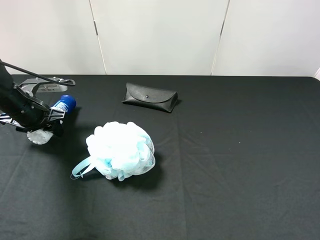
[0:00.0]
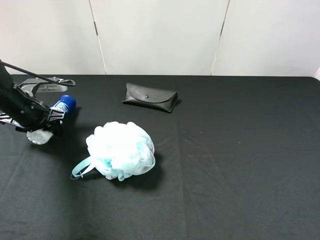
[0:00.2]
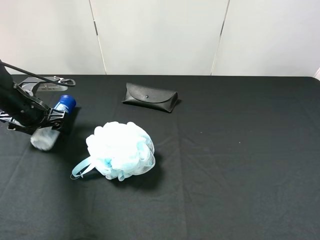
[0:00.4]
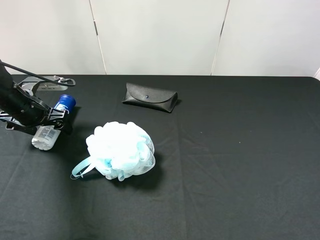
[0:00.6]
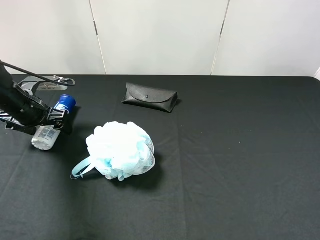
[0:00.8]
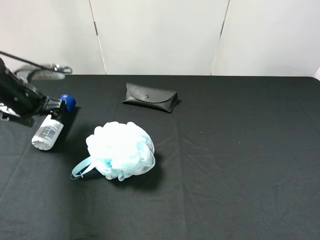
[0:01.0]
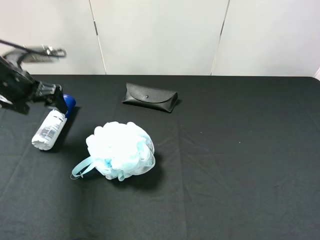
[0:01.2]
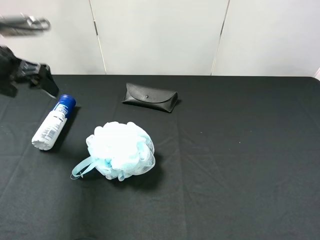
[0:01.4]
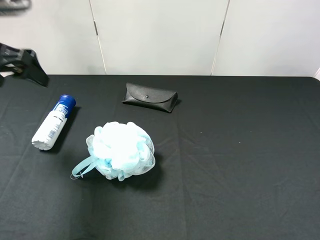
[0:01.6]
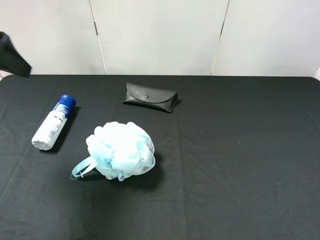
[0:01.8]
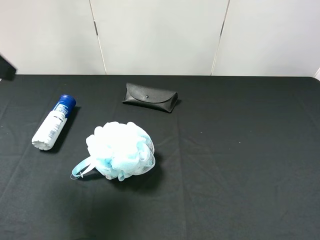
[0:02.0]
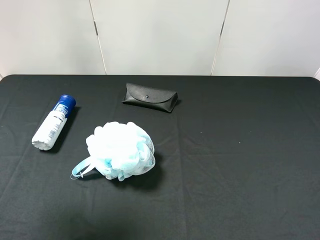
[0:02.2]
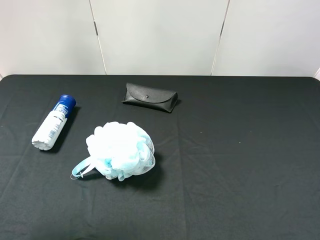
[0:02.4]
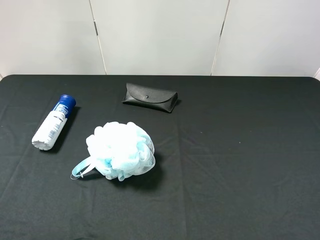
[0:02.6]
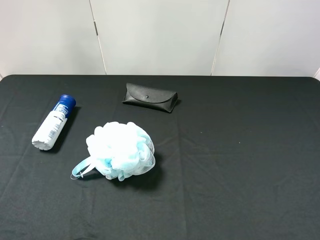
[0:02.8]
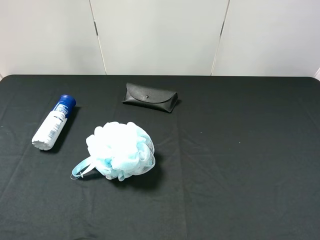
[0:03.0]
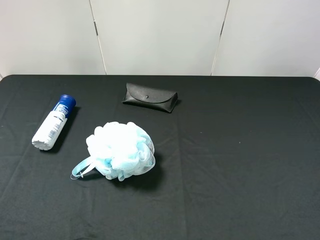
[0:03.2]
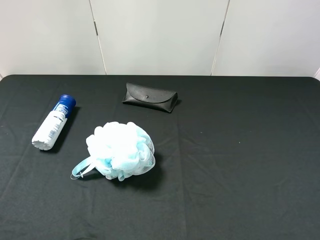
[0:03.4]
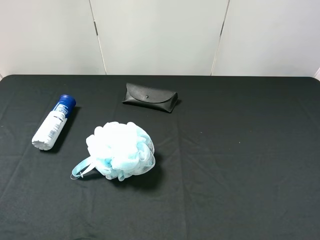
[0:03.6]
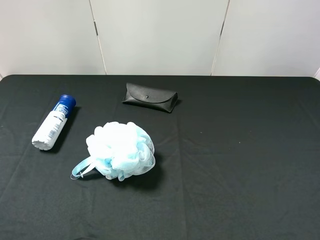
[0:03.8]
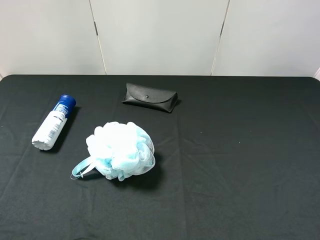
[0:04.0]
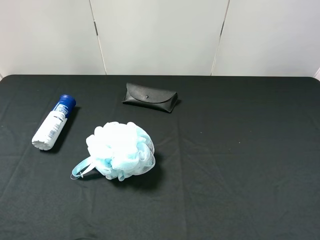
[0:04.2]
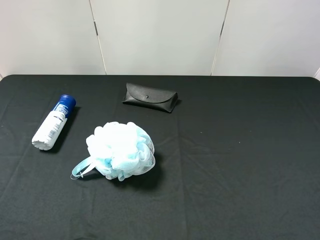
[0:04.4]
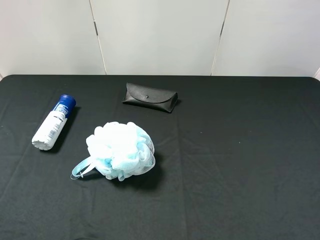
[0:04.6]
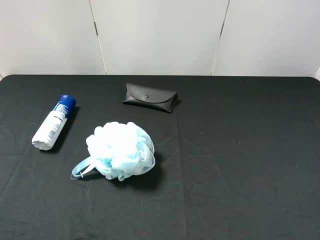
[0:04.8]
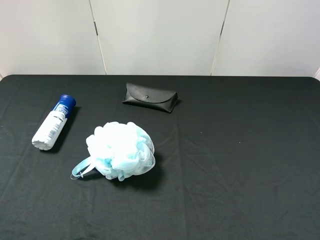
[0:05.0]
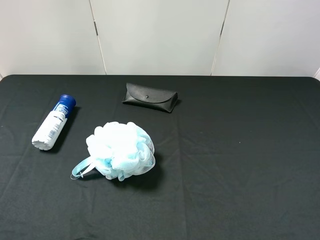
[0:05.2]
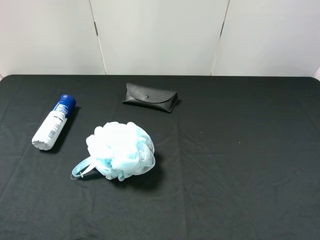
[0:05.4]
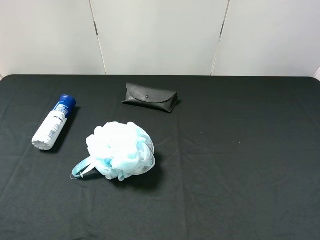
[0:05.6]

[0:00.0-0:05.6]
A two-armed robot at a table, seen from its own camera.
Task of the whole recording: use the right gripper to pick up the item and transfer it from the right gripper to the left gripper.
0:00.0 to 0:01.4: The left gripper shifts some 15 cm upward, and opens.
0:01.4 to 0:02.8: The left gripper moves backward and upward, about 30 cm.
0:04.2 to 0:05.6: The two grippers keep their place.

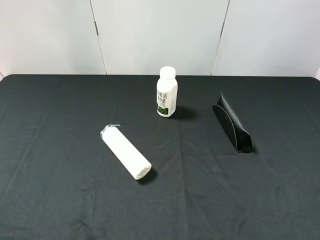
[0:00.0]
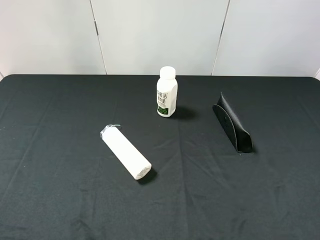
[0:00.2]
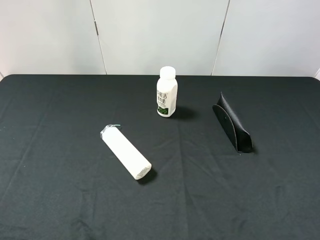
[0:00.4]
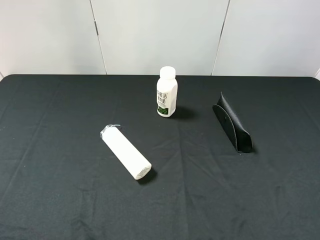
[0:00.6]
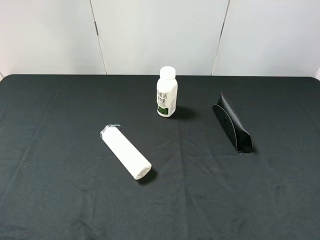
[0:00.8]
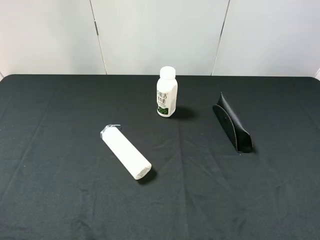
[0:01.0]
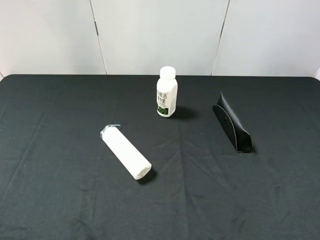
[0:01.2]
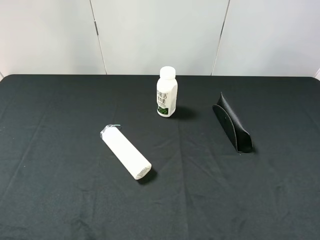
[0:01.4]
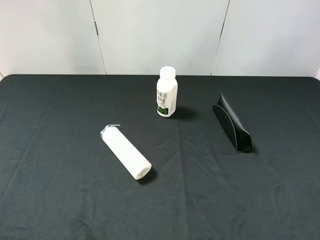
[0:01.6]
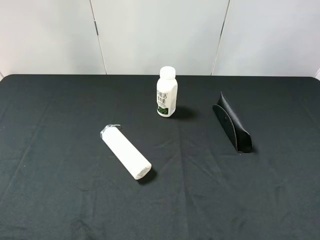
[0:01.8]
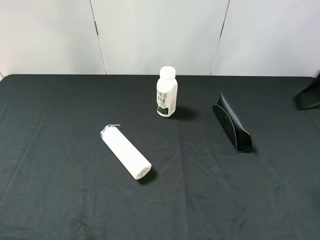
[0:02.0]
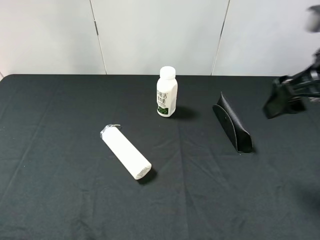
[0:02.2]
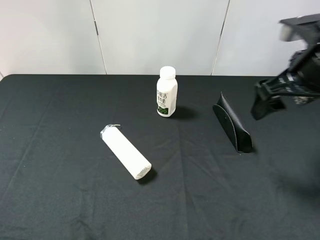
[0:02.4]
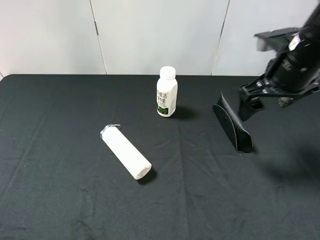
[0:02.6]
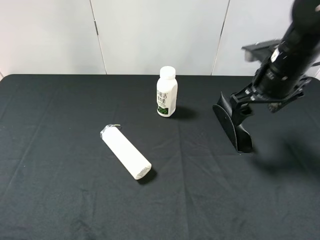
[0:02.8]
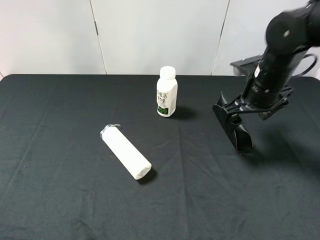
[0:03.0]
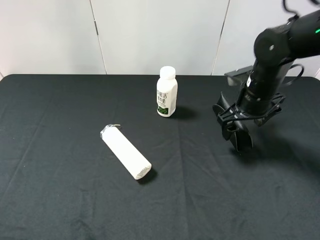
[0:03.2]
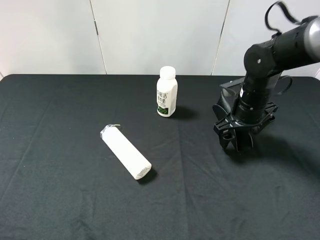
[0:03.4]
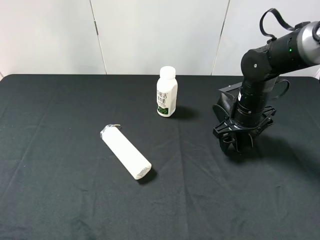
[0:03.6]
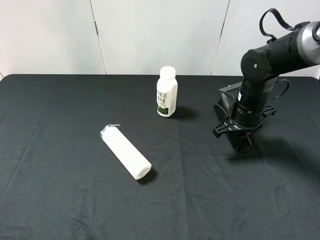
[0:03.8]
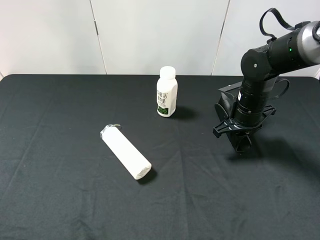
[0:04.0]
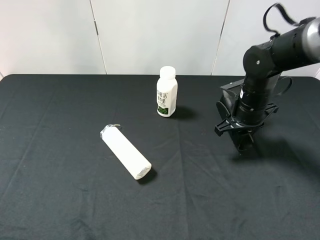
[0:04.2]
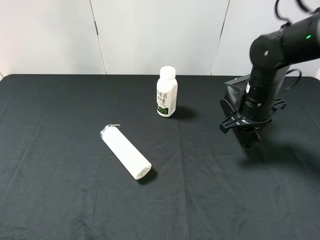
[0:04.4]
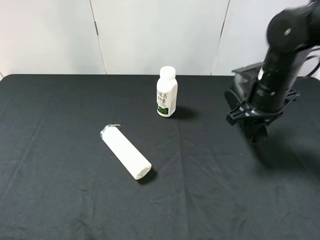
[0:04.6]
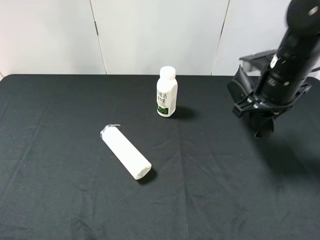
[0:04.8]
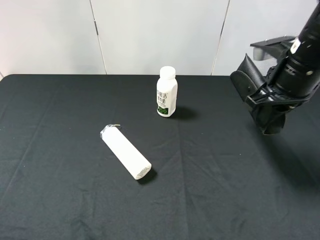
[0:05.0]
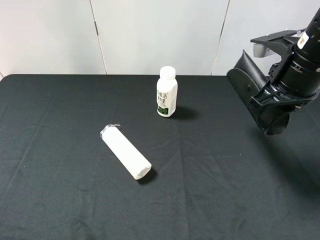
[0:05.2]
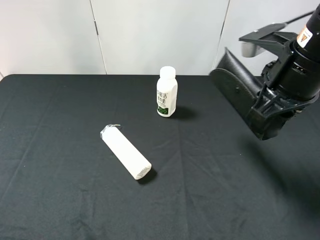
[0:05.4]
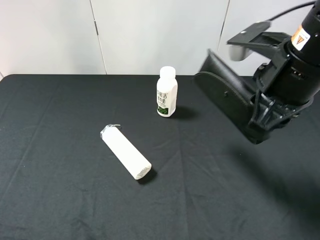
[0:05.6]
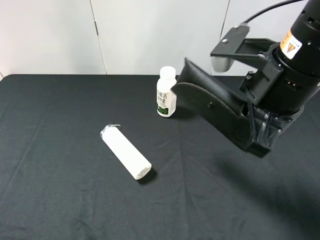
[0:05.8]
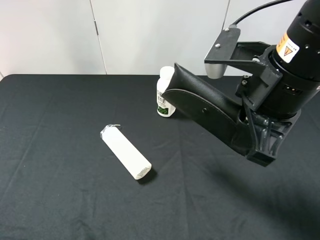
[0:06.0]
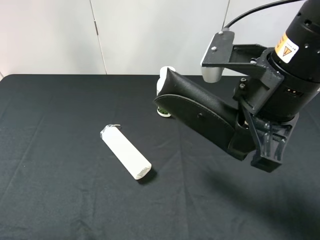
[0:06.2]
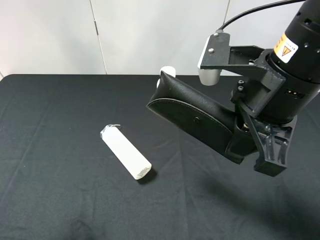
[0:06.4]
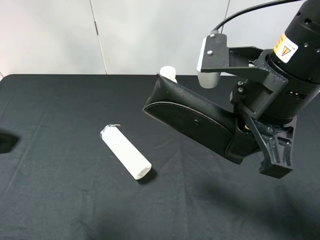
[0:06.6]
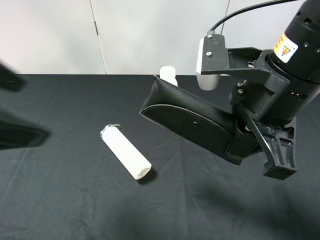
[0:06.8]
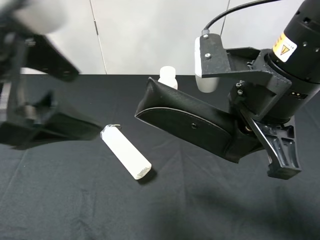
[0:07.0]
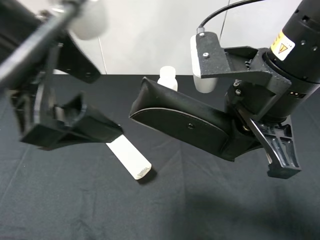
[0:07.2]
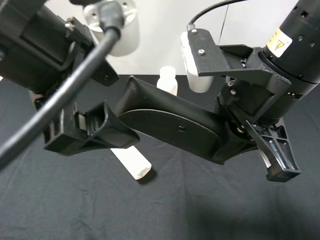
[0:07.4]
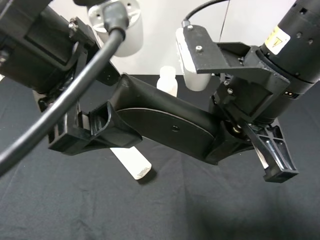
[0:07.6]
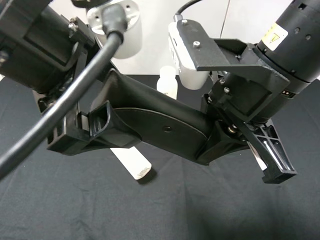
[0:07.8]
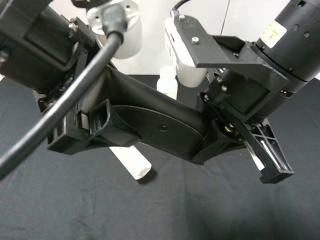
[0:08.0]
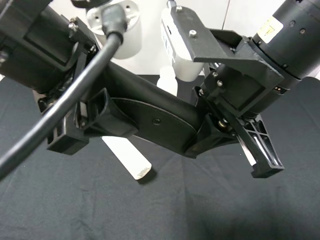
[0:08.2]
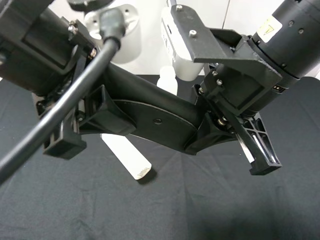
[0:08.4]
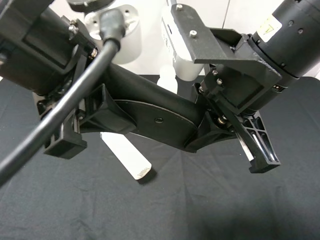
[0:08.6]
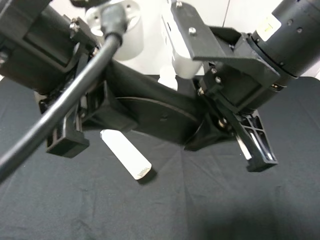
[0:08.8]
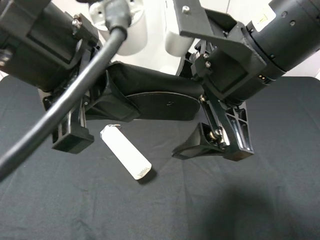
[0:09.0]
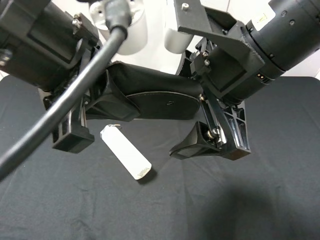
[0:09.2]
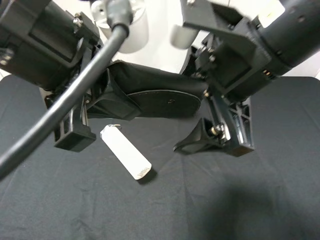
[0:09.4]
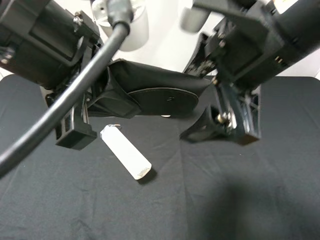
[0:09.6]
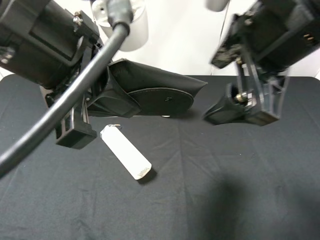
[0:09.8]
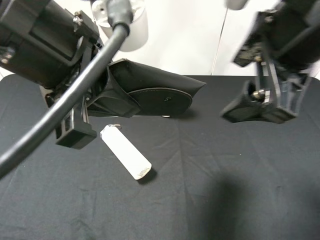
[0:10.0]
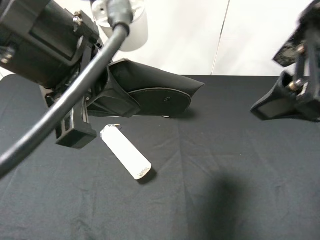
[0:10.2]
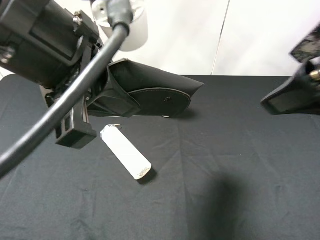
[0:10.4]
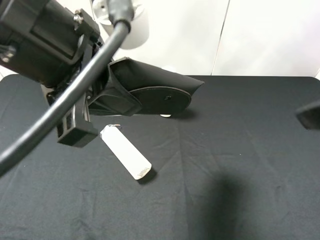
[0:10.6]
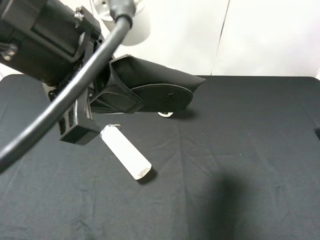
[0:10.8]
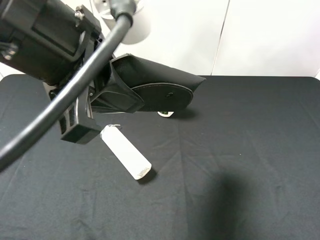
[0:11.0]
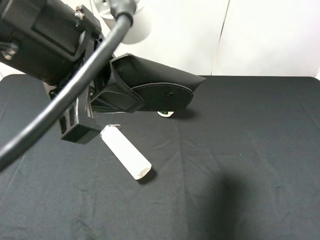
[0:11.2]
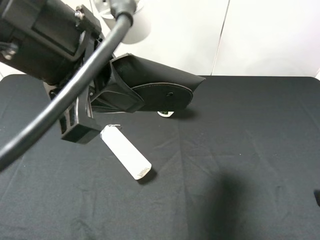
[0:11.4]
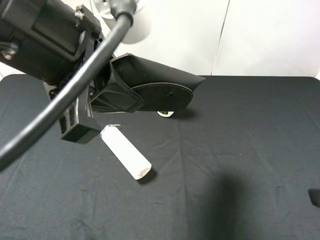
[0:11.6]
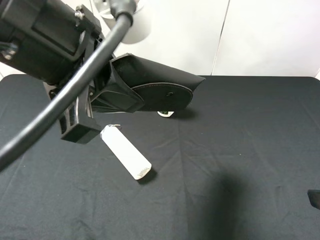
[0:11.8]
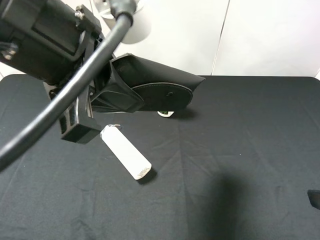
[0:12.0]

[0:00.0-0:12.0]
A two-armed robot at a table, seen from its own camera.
Task of the whole recording: use the right gripper to pick up the item and transfer it from the right gripper to the left gripper.
Step, 0:00.0 to 0:04.0: Use the right gripper to grab the eyeglass case on the right side of the table.
Step, 0:04.2 to 0:09.2: Pass the eyeglass case to the left gripper.
0:01.6 to 0:03.0: The right gripper shifts approximately 30 cm forward, downward and to the left.
0:03.0 to 0:04.4: The right gripper closes up.
0:04.4 to 0:06.0: The right gripper is displaced backward, upward and to the left by roughly 20 cm.
0:06.0 to 0:07.6: The left gripper goes roughly 25 cm to the right and forward.
0:07.6 to 0:09.0: The left gripper closes, while the right gripper opens.
0:09.0 to 0:10.4: The right gripper is displaced to the right and upward by about 10 cm.
0:10.4 to 0:12.0: The right gripper moves downward, backward and to the right, roughly 15 cm.

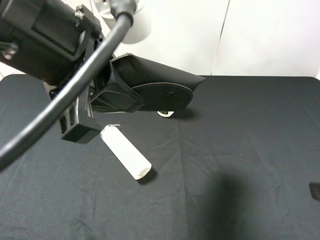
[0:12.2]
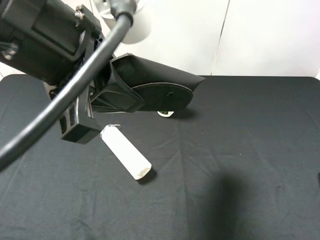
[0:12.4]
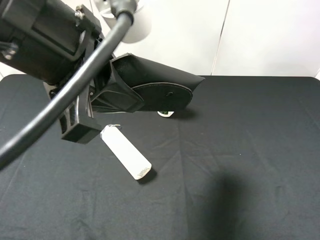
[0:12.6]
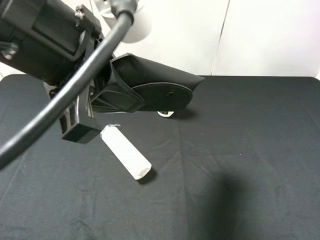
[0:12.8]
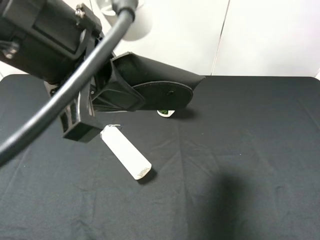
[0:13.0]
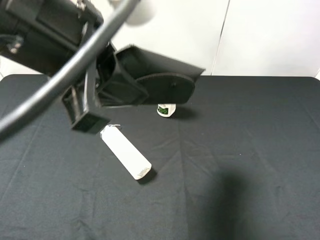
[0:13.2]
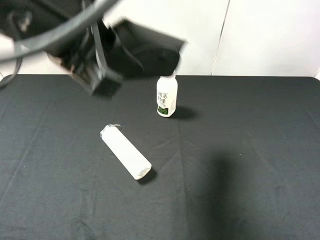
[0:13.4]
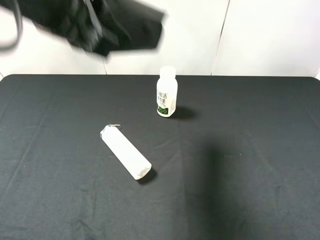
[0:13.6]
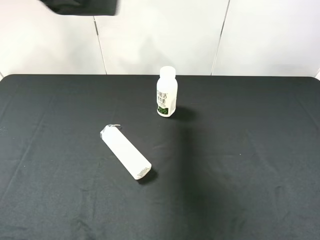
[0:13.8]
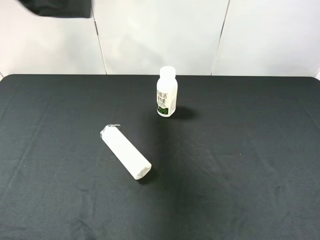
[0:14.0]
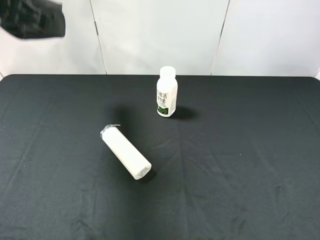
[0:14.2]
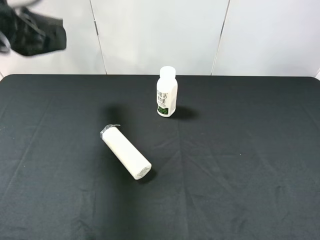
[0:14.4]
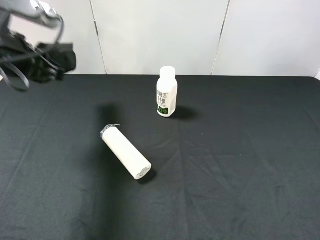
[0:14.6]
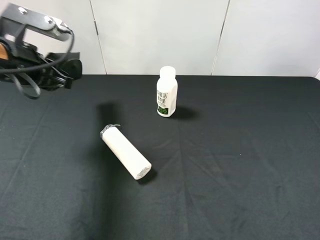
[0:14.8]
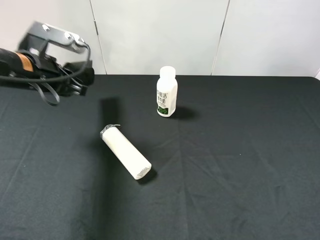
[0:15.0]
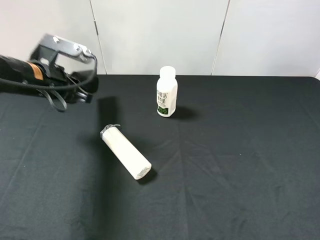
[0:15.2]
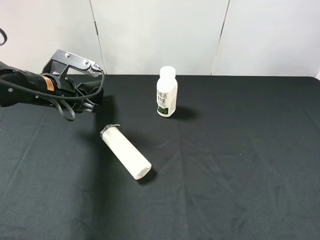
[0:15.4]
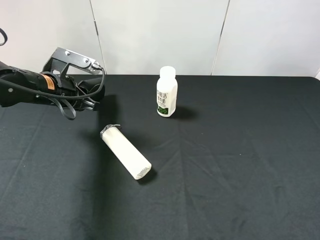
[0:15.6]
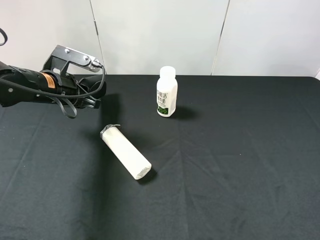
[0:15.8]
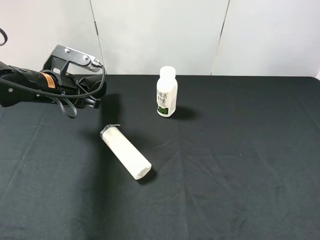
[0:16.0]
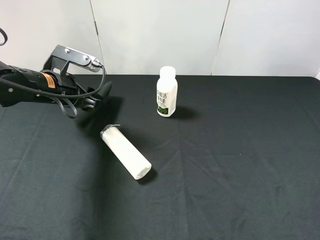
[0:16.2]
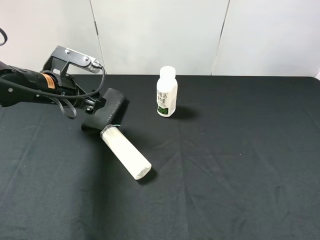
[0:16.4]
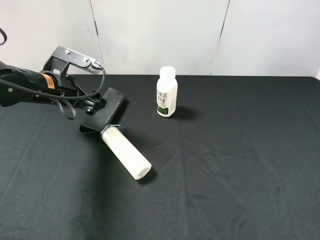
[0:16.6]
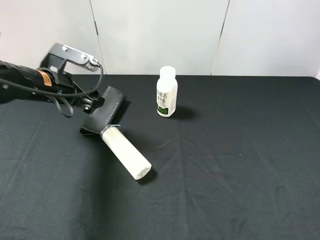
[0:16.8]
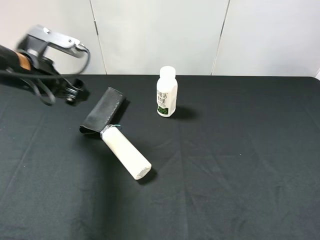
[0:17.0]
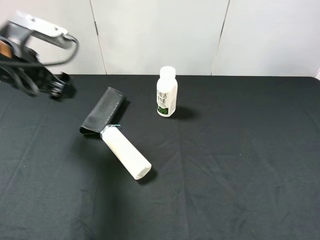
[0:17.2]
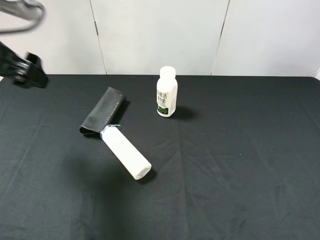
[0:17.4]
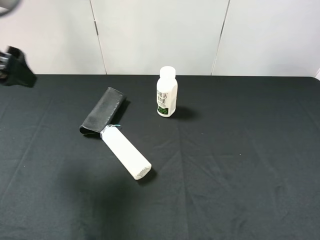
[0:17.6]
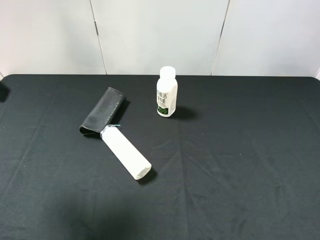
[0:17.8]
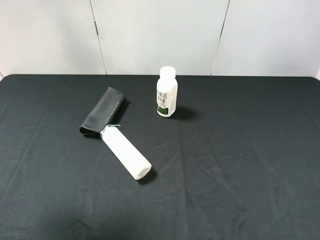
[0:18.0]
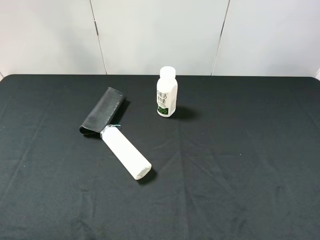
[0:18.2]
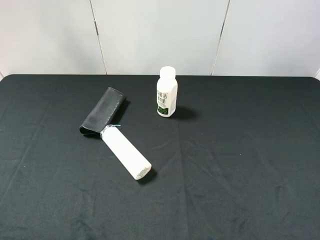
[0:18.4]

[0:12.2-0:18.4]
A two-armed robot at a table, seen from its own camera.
Task of the whole recording: use the right gripper to pick up the item and transfer it from the right gripper to the left gripper.
Step, 0:12.2 to 0:16.4: The left gripper places eyeglass case on the left side of the table.
0:12.2 to 0:13.8: The left gripper shifts roughly 10 cm forward, to the left and upward.
0:13.8 to 0:15.4: The left gripper shifts approximately 25 cm downward.
0:15.4 to 0:16.8: The left gripper opens its fingers.
0:16.8 to 0:18.4: The left gripper is displaced backward and upward by some 35 cm.
